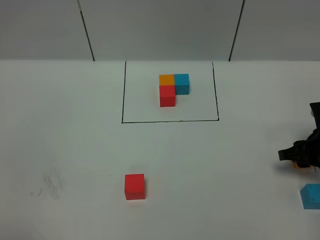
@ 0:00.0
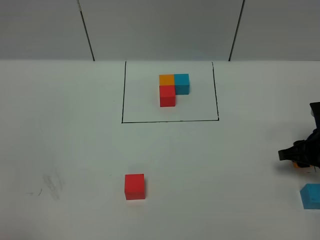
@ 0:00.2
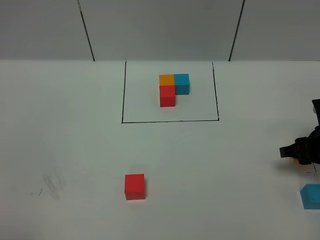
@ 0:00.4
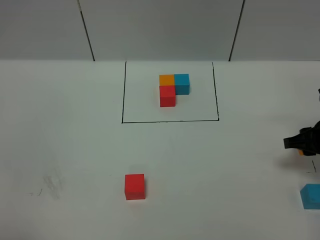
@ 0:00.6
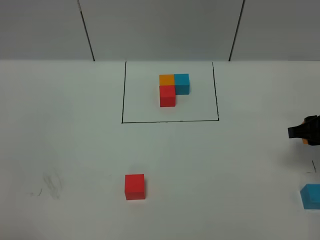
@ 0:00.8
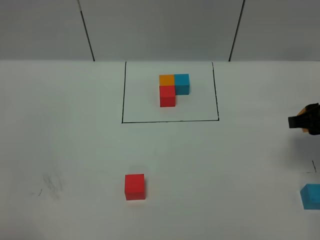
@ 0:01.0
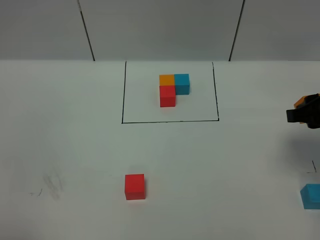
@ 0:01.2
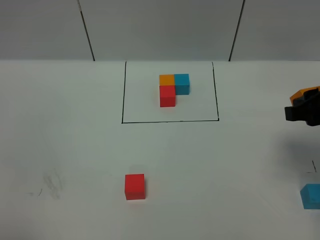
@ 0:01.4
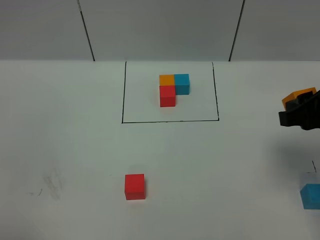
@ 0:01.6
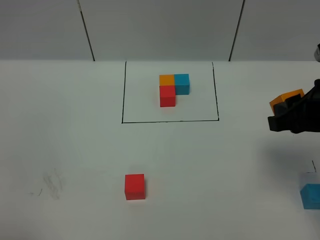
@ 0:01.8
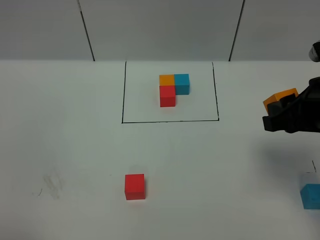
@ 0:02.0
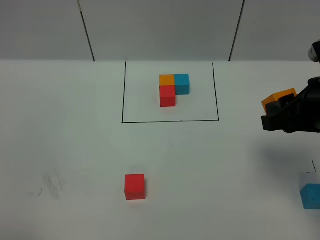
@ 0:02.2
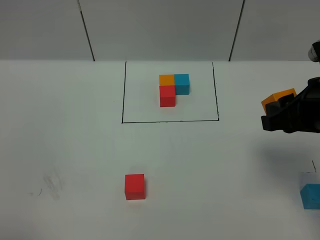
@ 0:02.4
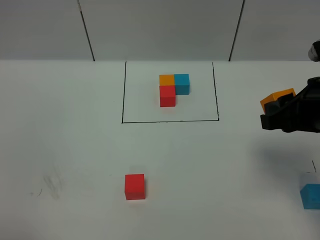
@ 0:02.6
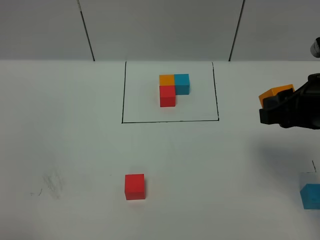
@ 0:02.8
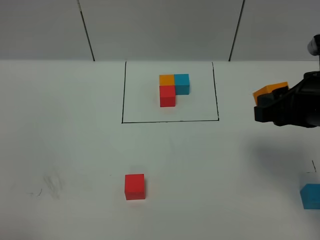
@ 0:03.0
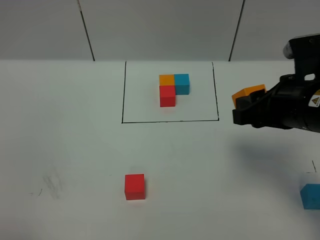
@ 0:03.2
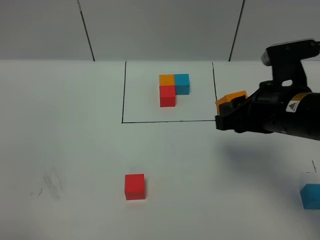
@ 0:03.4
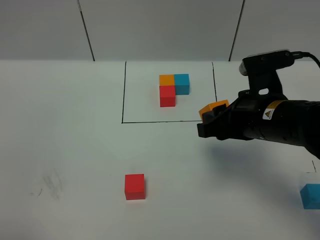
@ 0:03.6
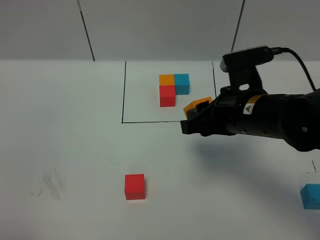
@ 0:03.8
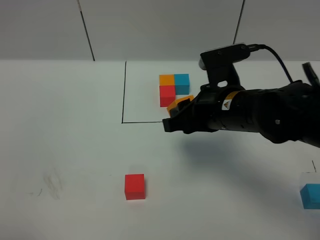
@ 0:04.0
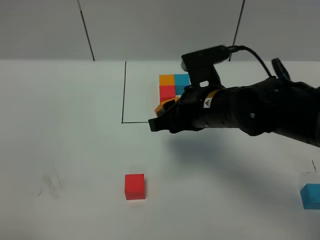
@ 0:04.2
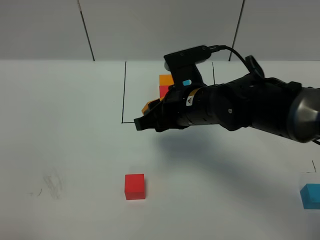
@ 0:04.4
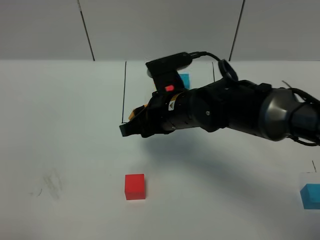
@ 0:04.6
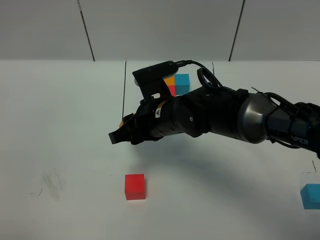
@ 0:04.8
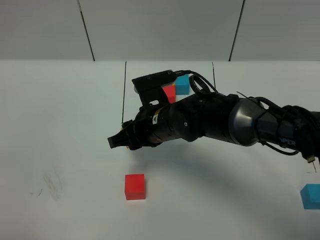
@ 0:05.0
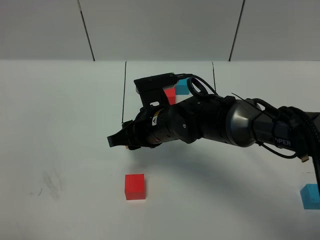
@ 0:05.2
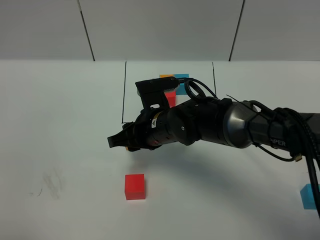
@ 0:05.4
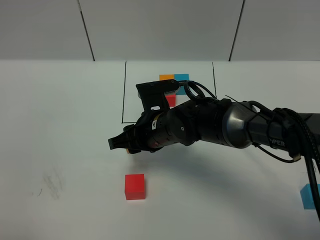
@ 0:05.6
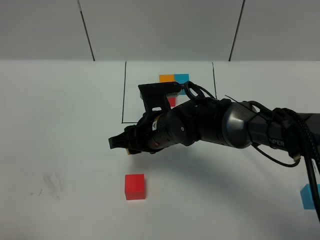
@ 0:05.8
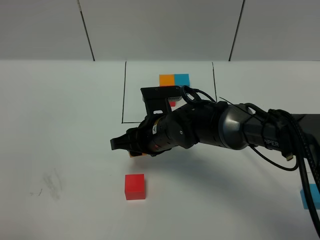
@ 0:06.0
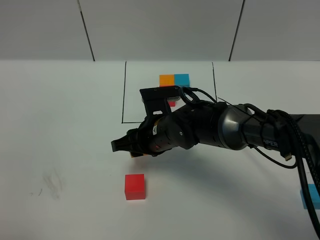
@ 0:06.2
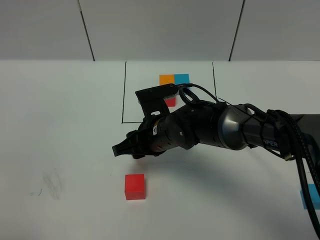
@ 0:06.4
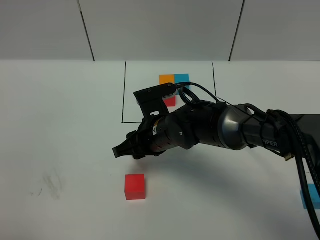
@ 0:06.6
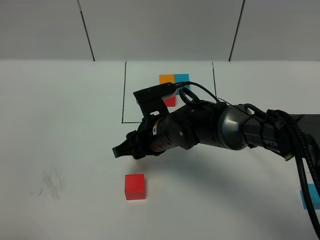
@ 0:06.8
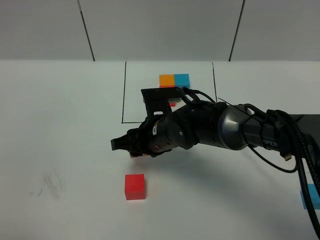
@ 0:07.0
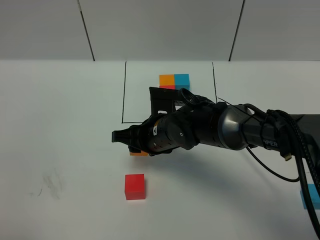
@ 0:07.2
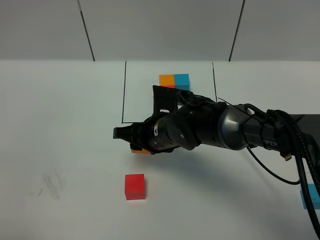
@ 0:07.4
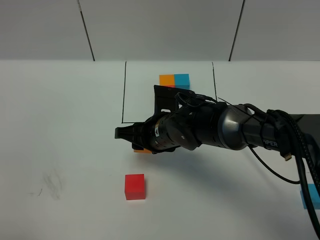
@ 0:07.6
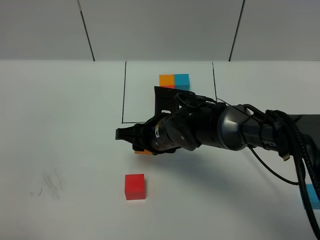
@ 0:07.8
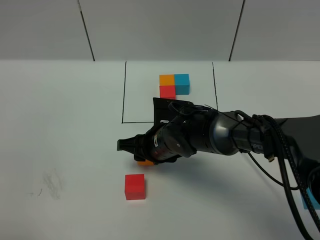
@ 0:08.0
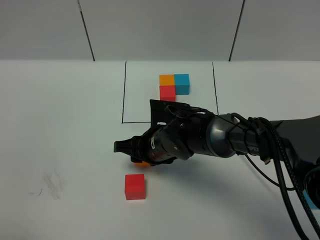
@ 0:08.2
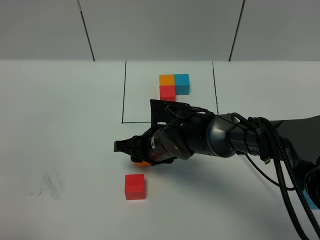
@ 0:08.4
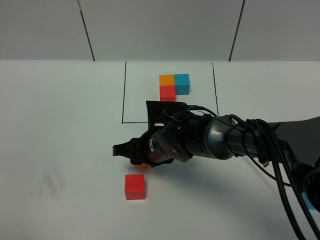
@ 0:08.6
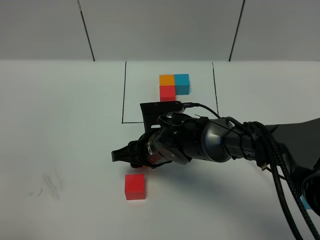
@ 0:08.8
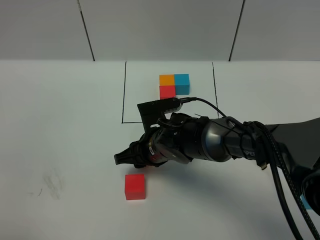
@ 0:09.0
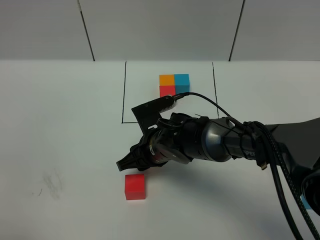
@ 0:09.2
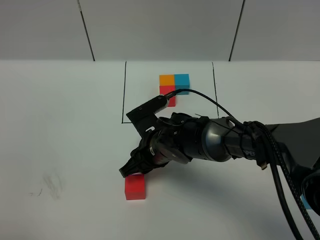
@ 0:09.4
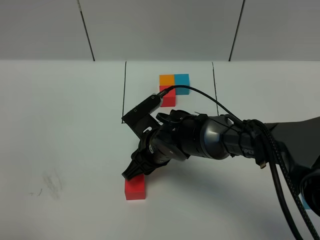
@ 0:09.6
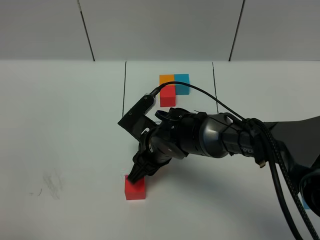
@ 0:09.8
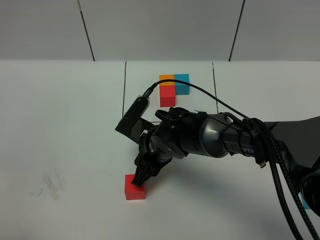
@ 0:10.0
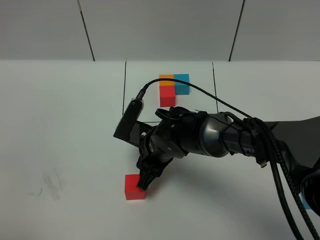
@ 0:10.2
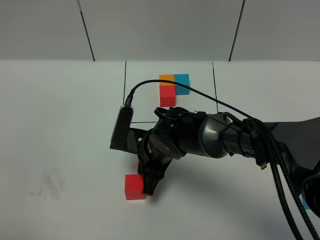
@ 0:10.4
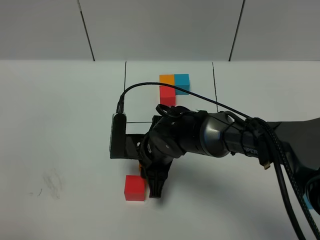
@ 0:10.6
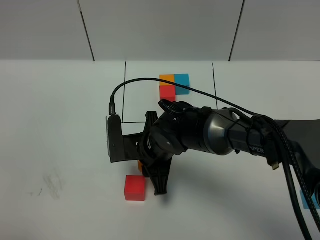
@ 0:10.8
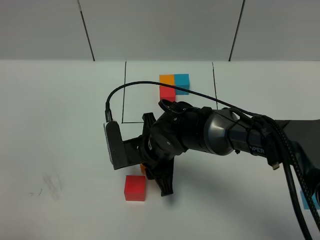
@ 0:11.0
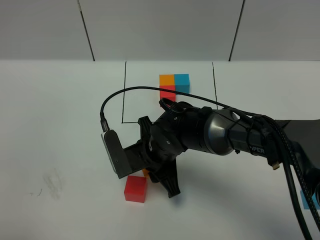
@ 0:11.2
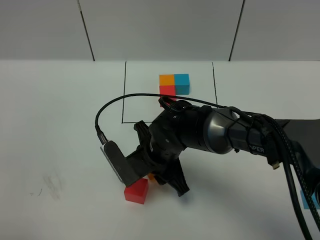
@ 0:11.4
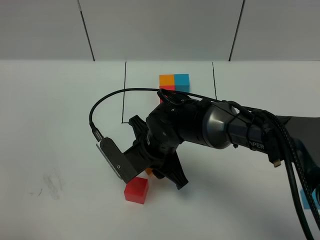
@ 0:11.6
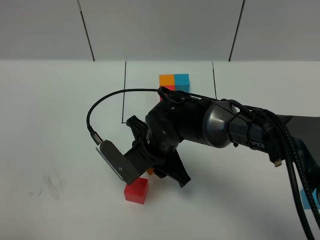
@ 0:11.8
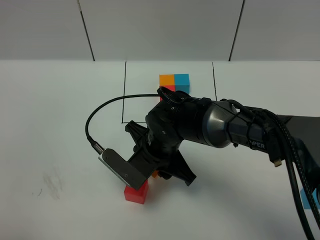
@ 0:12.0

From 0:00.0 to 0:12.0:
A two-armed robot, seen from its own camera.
Task of the whole recording: According to the building block template in front, assemble the scattered blocks together.
From 0:00.0 to 0:01.6: The right gripper is displaced upward by some 20 cm.
From 0:01.6 to 0:03.0: The grippers move only a little.
From 0:03.0 to 0:04.4: The right gripper heads to the left, downward and forward, covering some 20 cm.
From 0:04.4 to 0:06.0: The right gripper goes roughly 10 cm downward and to the left.
From 0:06.0 to 0:09.0: The grippers make only small movements.

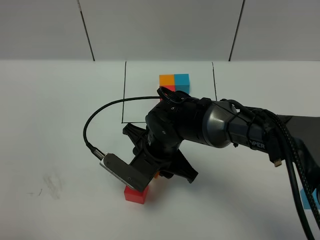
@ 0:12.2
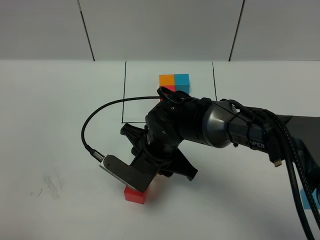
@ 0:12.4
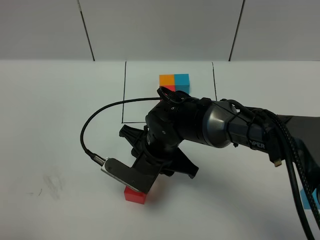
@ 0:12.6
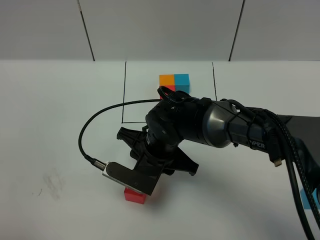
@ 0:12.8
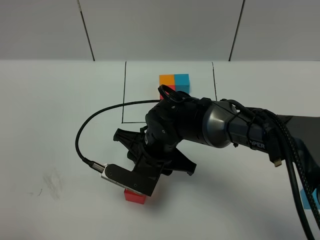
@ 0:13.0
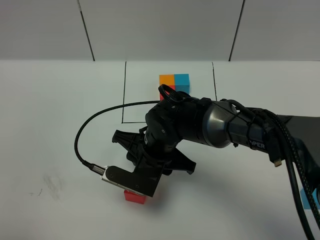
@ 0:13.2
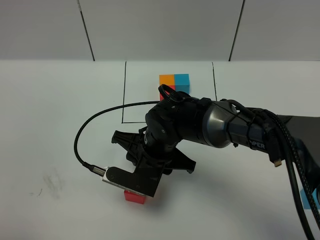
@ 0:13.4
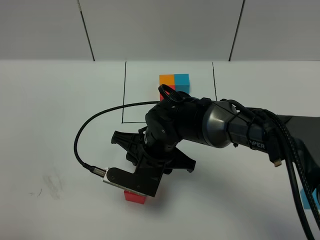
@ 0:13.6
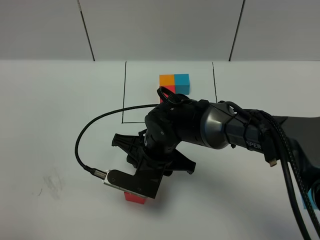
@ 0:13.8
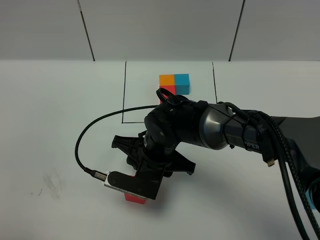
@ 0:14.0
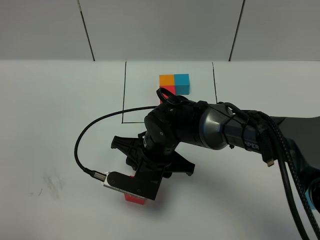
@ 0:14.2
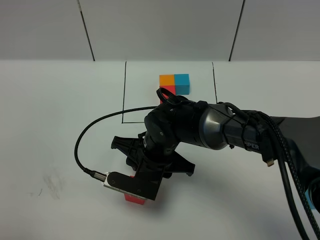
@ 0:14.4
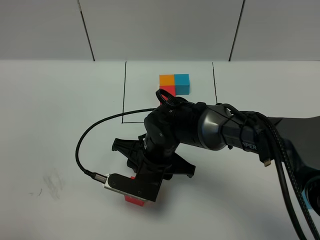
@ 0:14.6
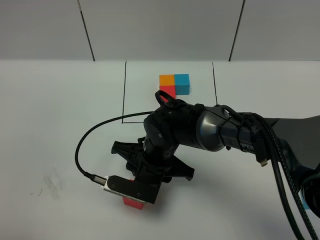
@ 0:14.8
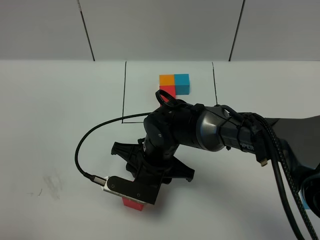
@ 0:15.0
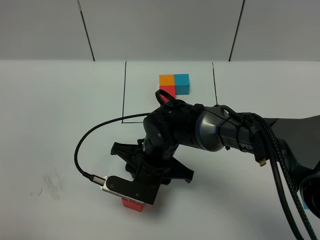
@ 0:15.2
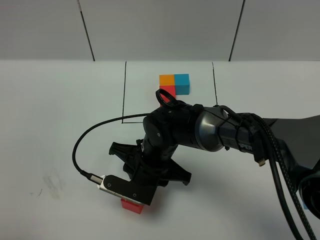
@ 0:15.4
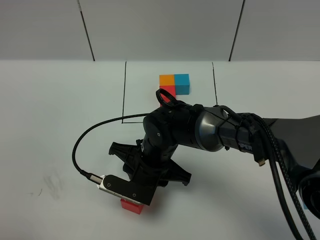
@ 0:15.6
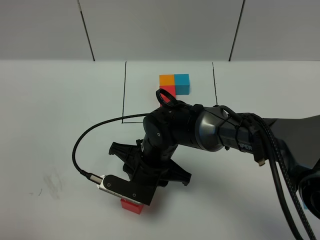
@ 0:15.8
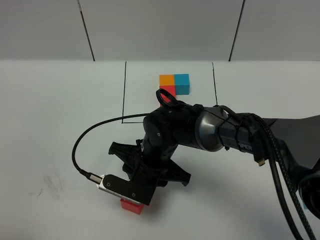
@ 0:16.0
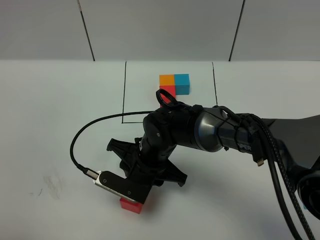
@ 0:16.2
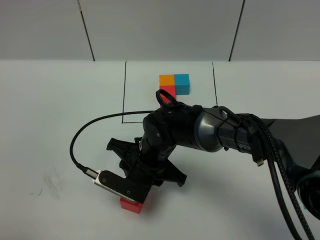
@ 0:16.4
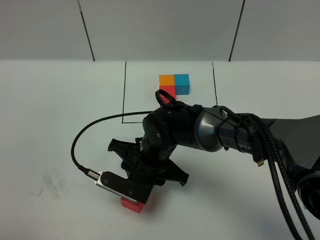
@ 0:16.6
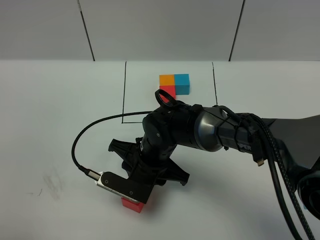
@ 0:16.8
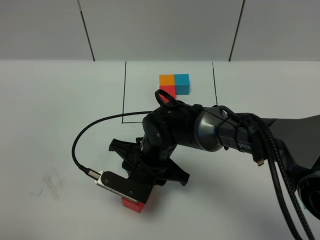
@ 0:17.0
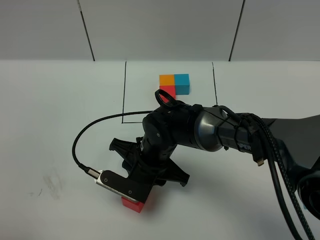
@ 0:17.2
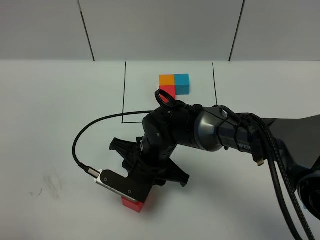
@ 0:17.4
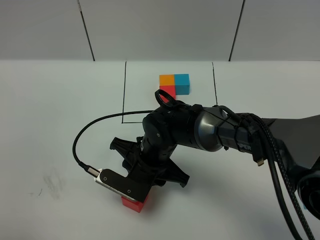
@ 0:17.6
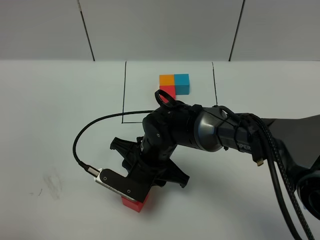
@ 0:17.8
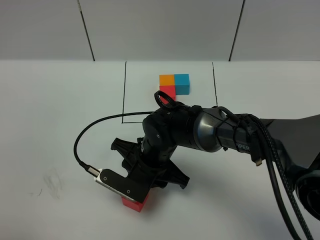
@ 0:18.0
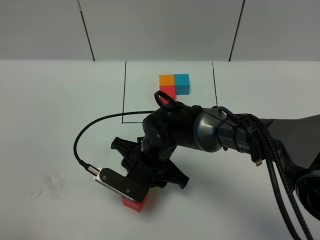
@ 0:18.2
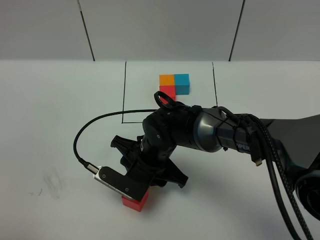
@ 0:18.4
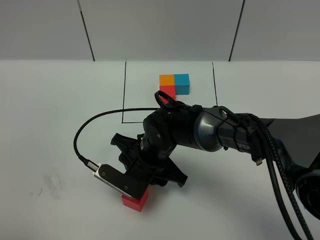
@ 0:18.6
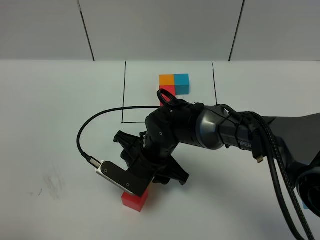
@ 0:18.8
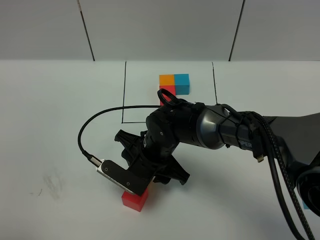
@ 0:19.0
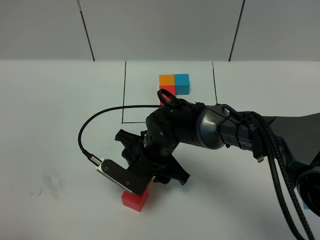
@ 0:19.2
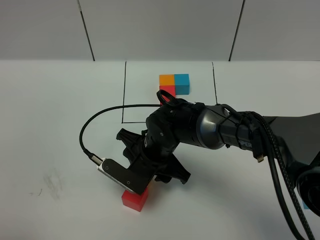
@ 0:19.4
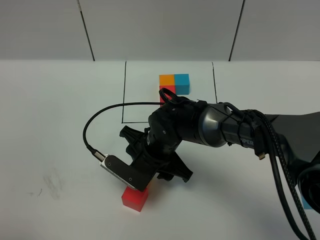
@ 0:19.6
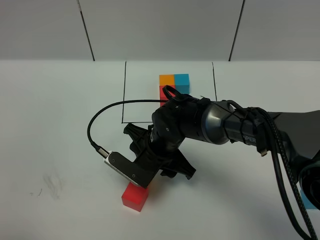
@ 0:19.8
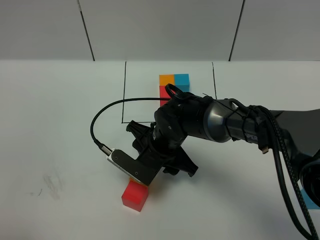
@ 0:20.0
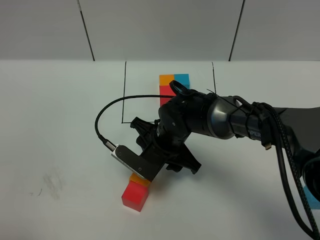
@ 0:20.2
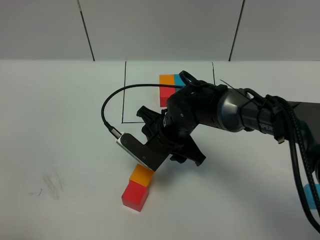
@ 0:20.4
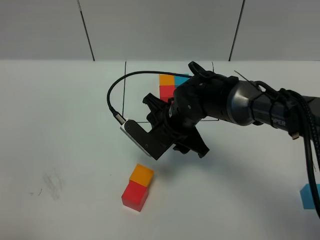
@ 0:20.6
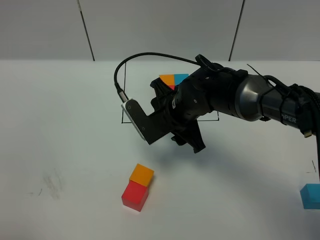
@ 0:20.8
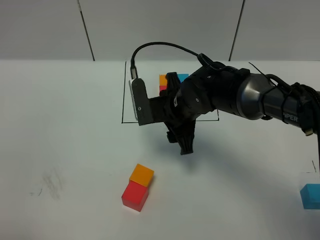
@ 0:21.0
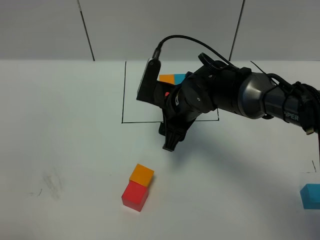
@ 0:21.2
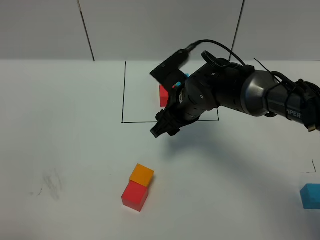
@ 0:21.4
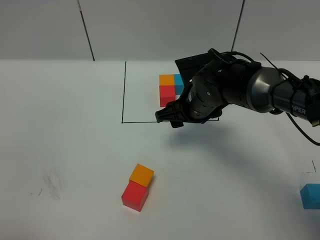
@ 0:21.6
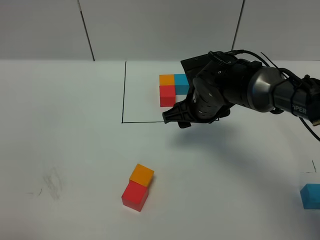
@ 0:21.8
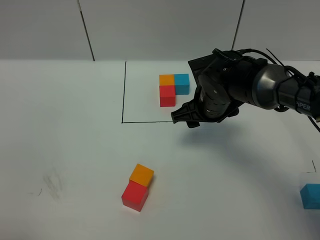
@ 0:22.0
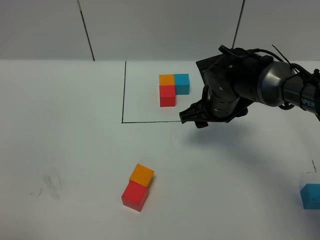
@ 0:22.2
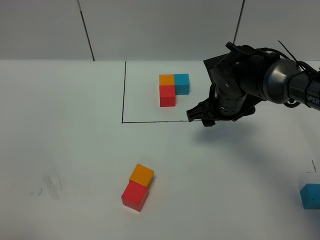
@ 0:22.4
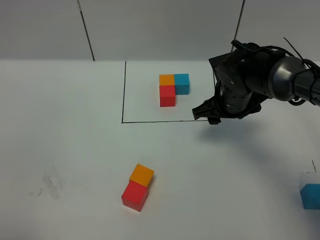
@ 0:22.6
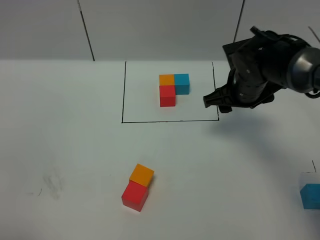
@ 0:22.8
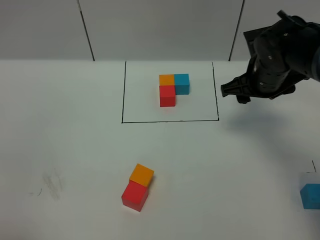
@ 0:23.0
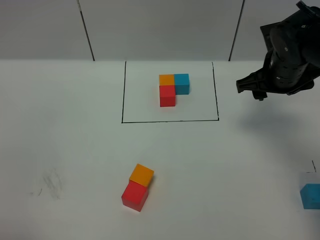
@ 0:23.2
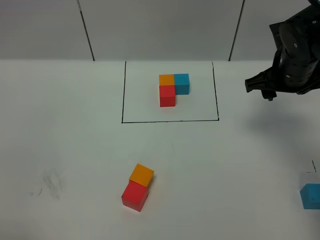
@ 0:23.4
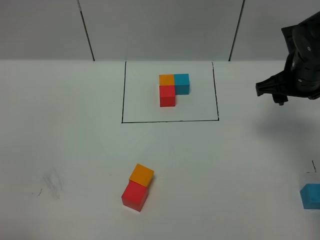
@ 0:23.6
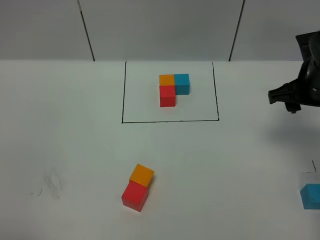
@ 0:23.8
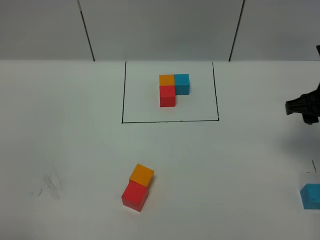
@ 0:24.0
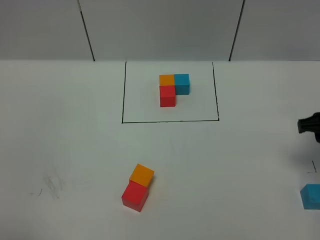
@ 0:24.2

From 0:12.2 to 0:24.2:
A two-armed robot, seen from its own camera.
Task of the whole recording: According to the building block template in front, assemble the scattered blocks together.
Step, from 0:12.2 to 0:20.0: Put the orange cube on the behind of the red cube.
From 0:12.2 to 0:19.8: The grippers make only small movements.
From 0:19.8 to 0:21.2: The right gripper shifts about 5 cm upward.
From 0:21.2 to 0:22.6: The right gripper goes roughly 10 cm to the right.
From 0:22.6 to 0:24.2: The right gripper shifts approximately 20 cm to the right and backward.
